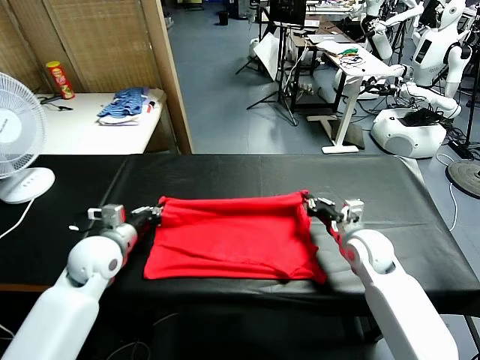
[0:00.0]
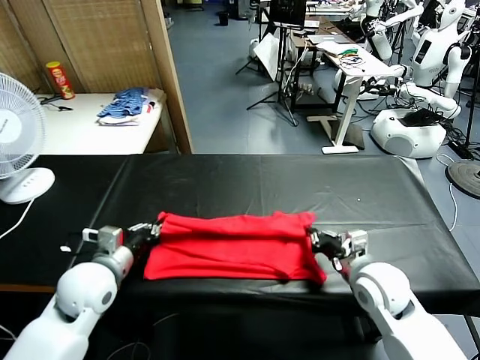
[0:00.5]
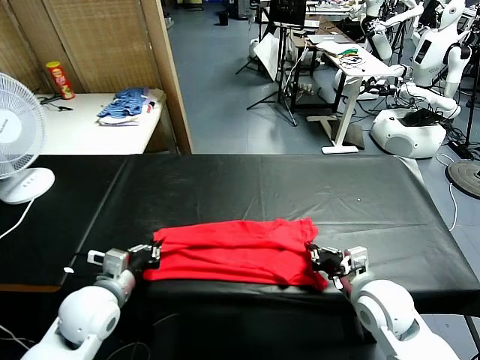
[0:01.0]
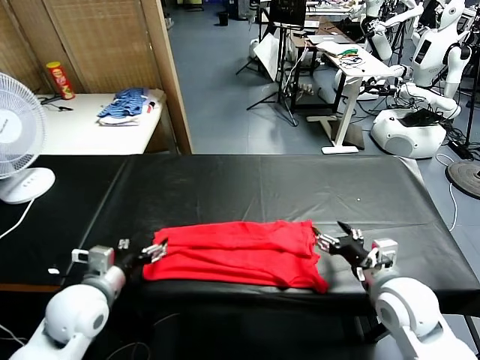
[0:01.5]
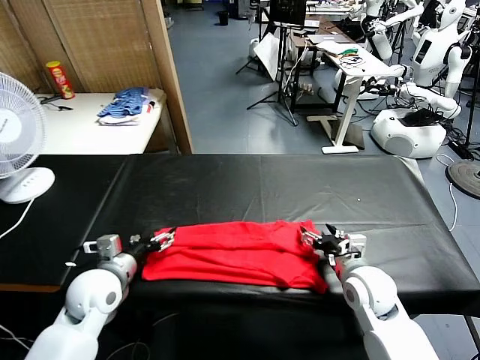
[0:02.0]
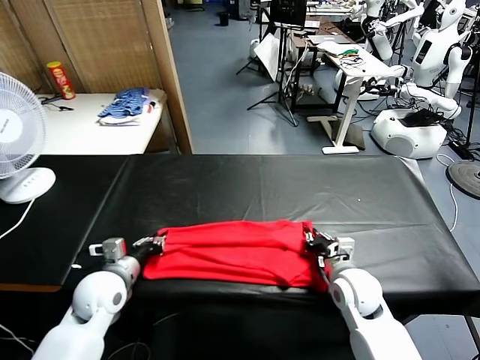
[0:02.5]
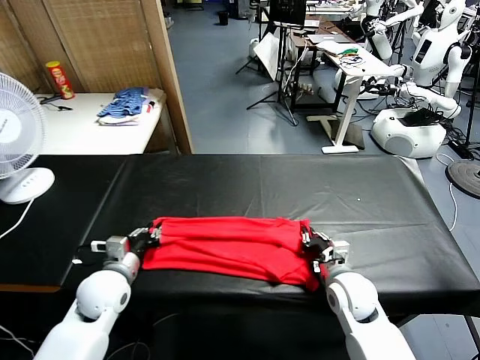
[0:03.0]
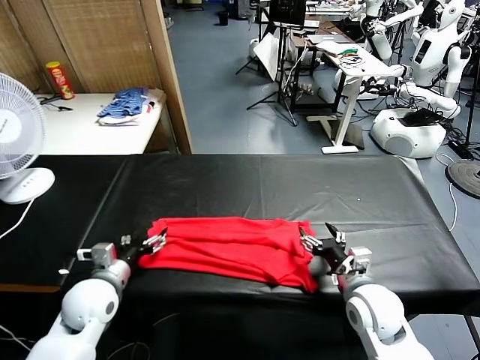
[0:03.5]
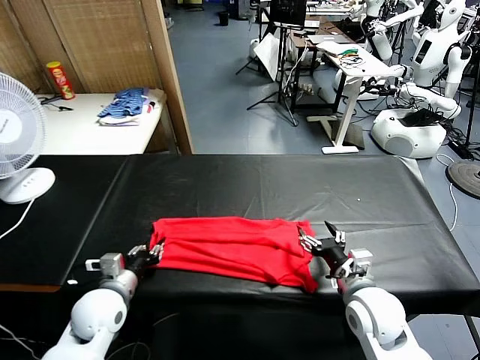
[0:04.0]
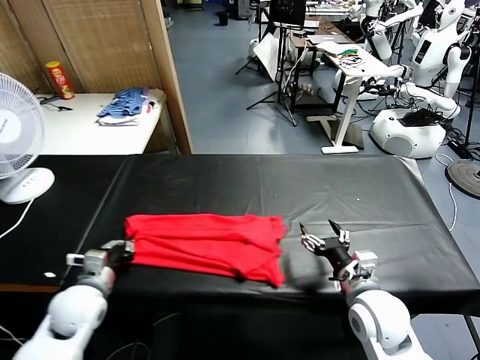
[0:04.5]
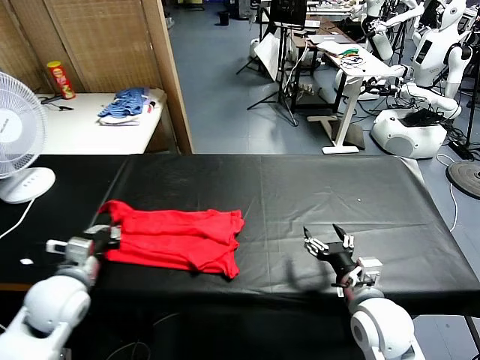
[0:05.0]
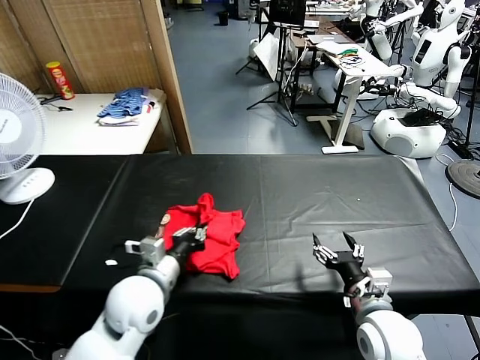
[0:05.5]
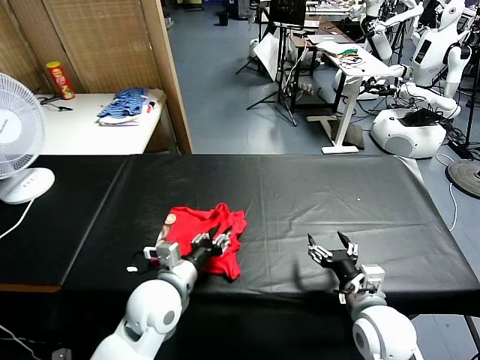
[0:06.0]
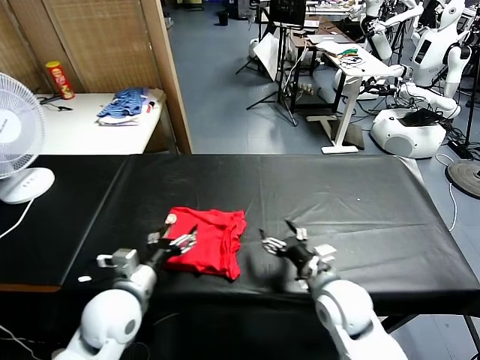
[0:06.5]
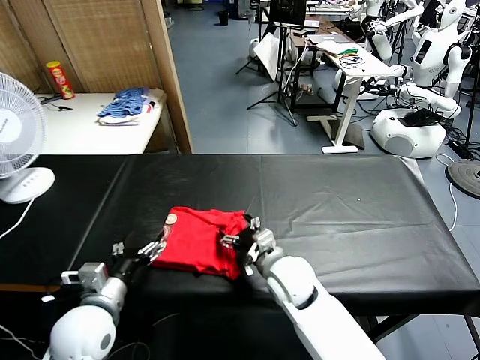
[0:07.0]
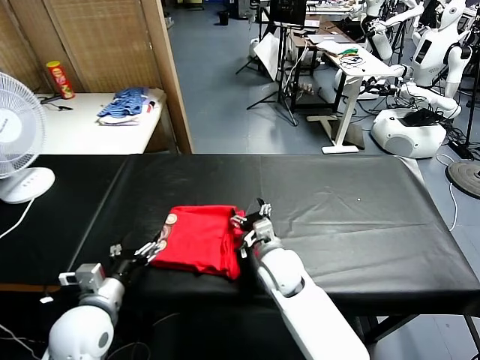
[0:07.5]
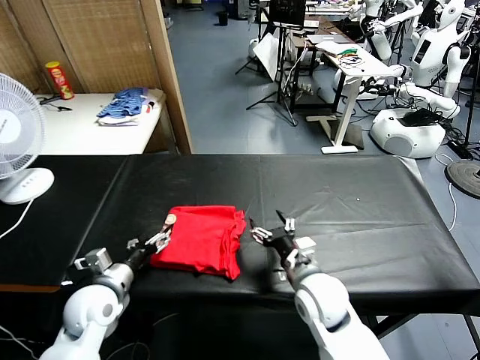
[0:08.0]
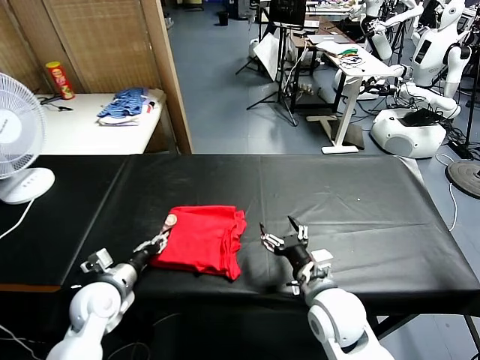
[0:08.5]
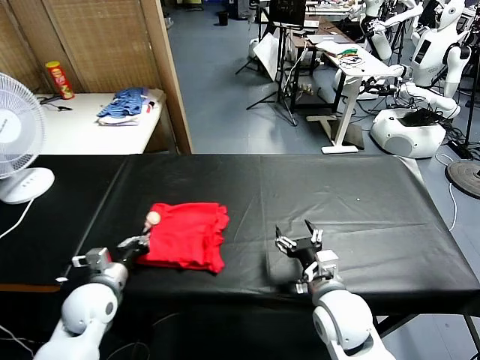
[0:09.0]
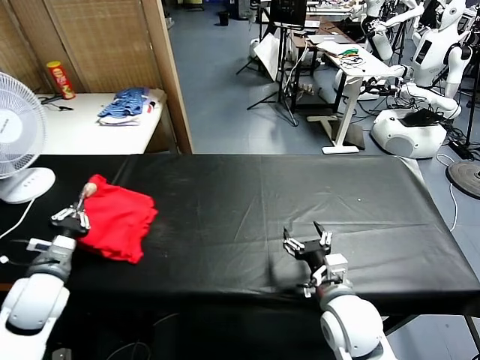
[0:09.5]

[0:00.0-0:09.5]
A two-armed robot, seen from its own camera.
Task of the whole recording: fold and organize the clothes.
Step, 0:00.0 to 0:01.0: use both grippers to drag the upper edge of the fabric backward and fold it over the lower edge.
Step, 0:01.5 to 0:04.0: use the left gripper to clamp the left edge of the fabric.
Step, 0:04.5 to 0:06.0: use the left gripper to drag the left edge of the fabric to the left and folds it over the right edge.
0:00.0 to 0:02.0: The right gripper opens its fingers. The left gripper opens.
0:02.0 to 0:04.0: The right gripper shifts about 5 cm backward, and closes, then opens again; the left gripper closes its fingers.
0:04.0 to 0:05.5: The left gripper moves to the right and upward, roughly 15 cm.
0:05.5 to 0:07.5: The right gripper is displaced to the left and forward by about 25 cm, while the left gripper goes some 10 cm to the left, and opens up.
0:07.5 to 0:09.5: The right gripper heads backward and to the right, covering roughly 15 cm. Meanwhile the left gripper shifts some 10 cm to the left and forward, and closes.

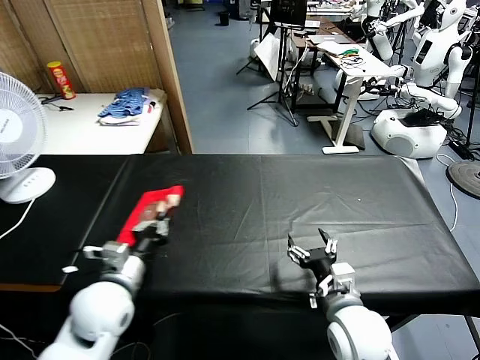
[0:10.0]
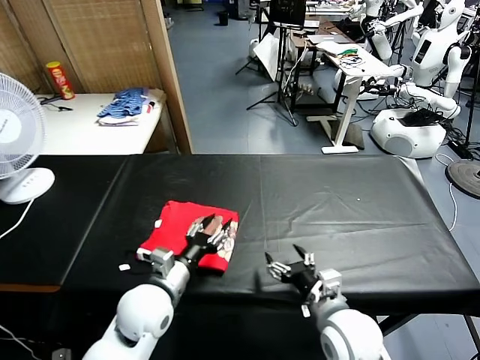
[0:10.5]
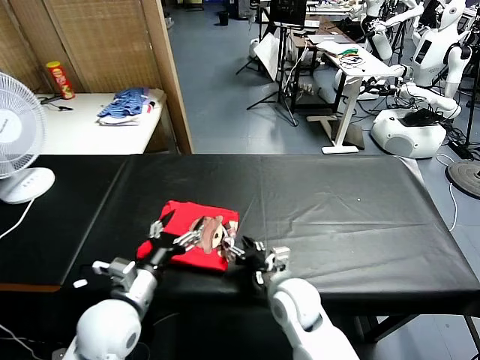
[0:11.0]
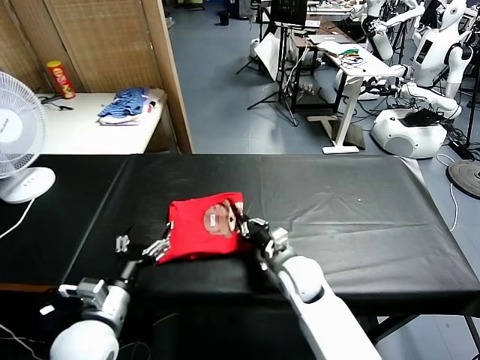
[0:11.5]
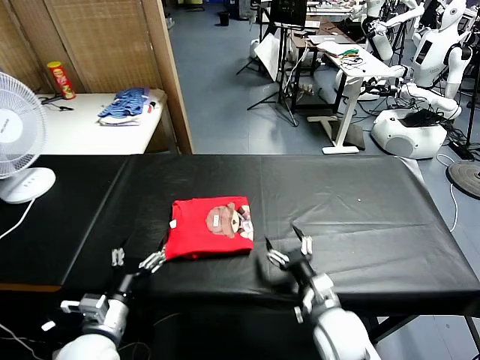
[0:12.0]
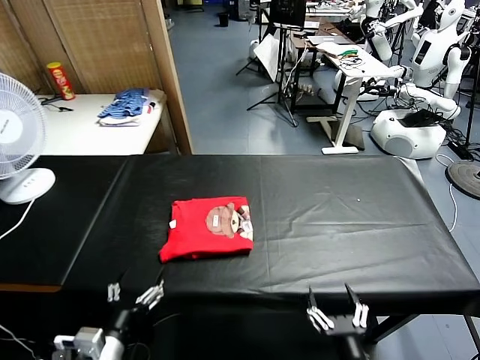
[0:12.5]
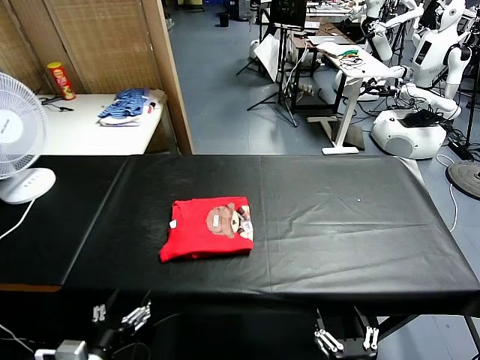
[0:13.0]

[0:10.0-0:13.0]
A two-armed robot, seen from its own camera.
Task of the whole recording: fold and organize the clothes.
Step, 0:11.0 to 0:11.5: Drag the clothes to the center of the table.
0:10.0 to 0:11.5: The left gripper heads backward, covering some 5 cm, moves approximately 10 cm to the right and comes back, and opens. The right gripper moves forward, to the left and downward, roughly 15 cm, and closes up.
0:11.5 to 0:13.0: The right gripper shifts about 30 cm backward, and opens up, while the left gripper shifts about 10 cm backward.

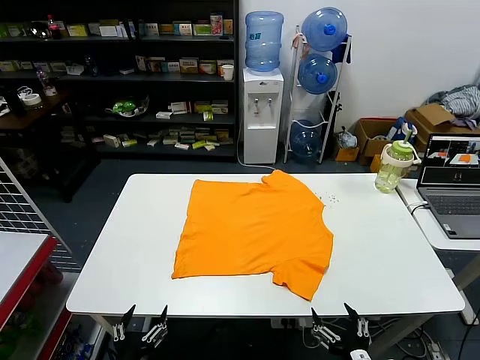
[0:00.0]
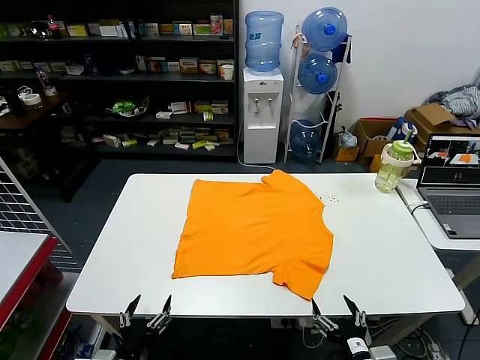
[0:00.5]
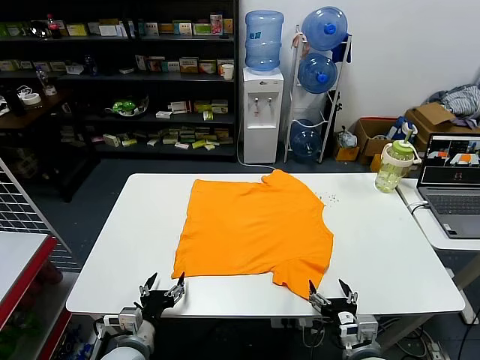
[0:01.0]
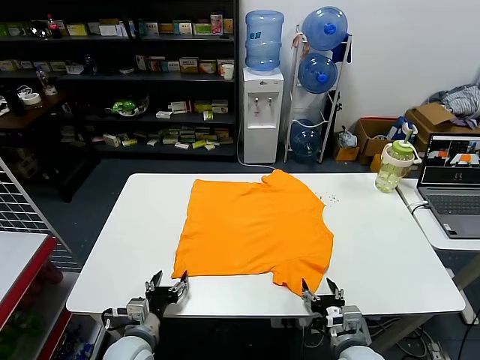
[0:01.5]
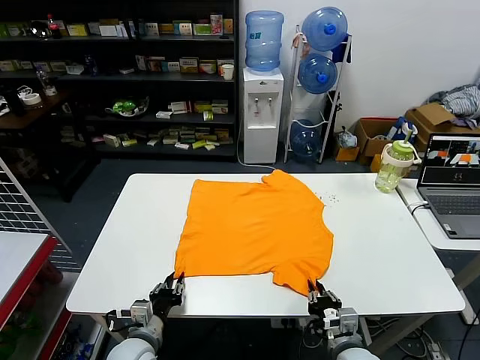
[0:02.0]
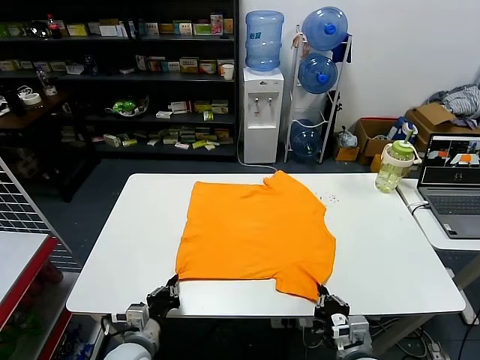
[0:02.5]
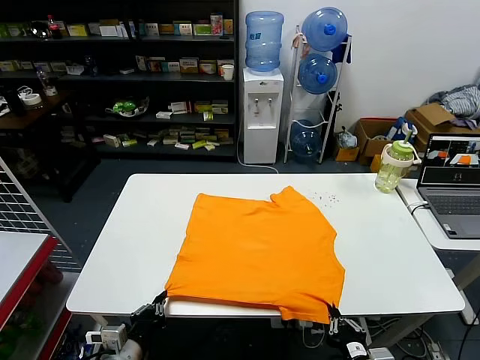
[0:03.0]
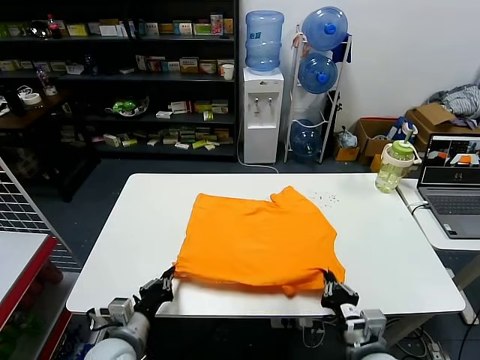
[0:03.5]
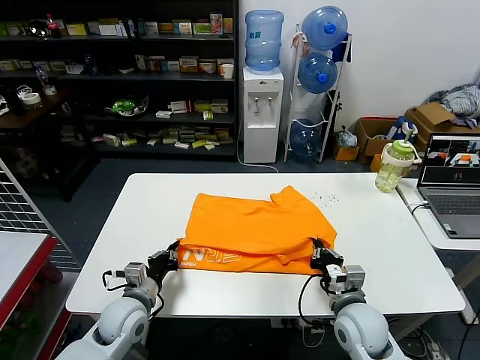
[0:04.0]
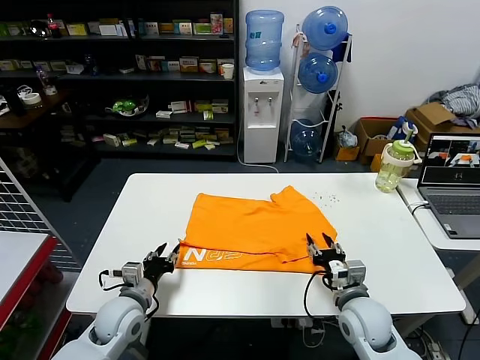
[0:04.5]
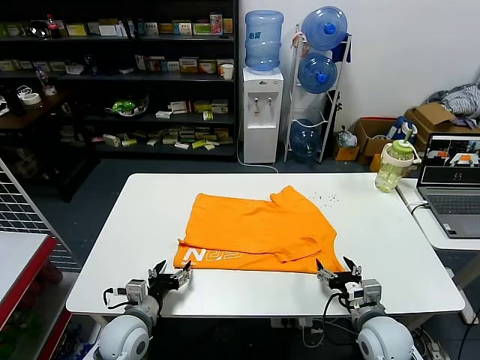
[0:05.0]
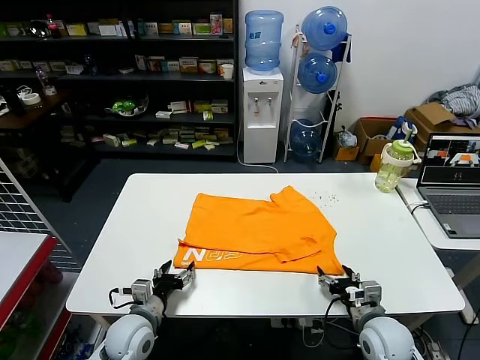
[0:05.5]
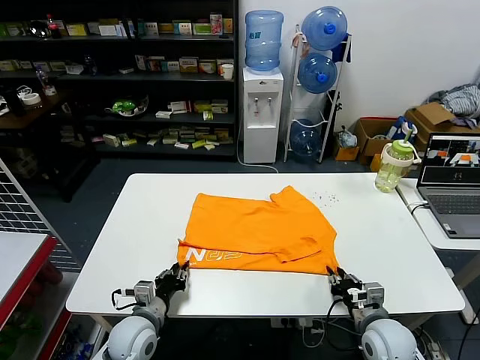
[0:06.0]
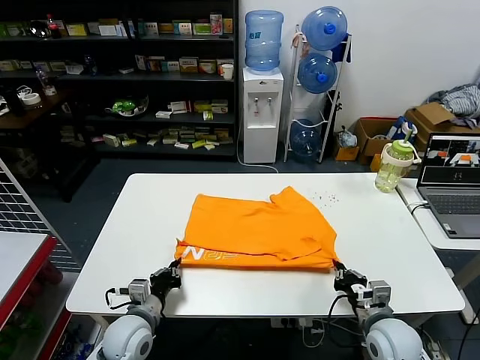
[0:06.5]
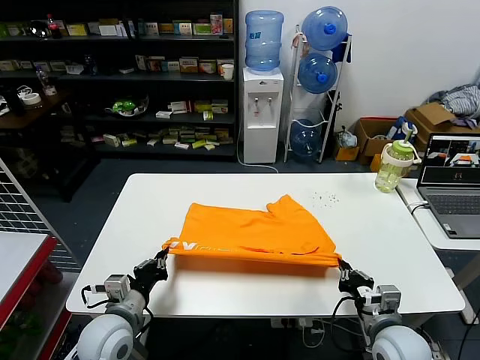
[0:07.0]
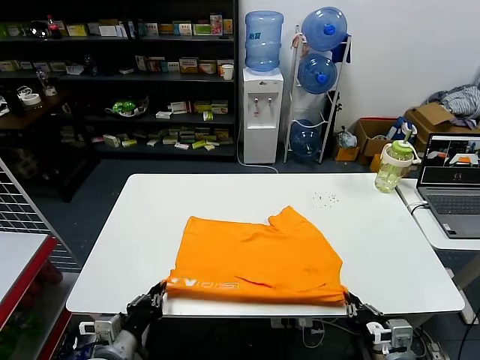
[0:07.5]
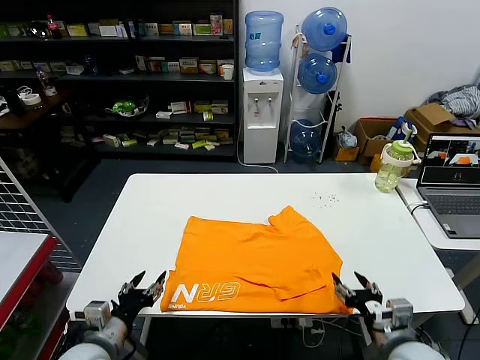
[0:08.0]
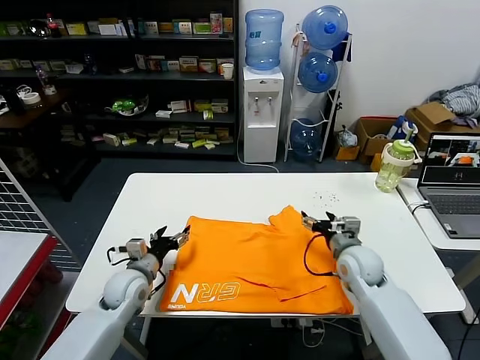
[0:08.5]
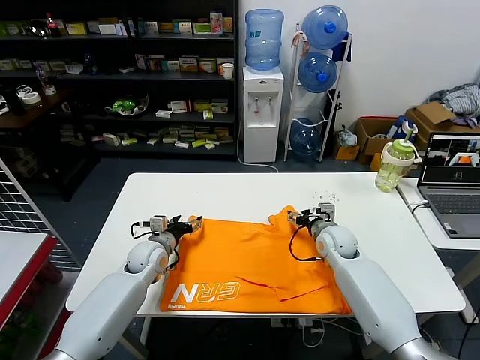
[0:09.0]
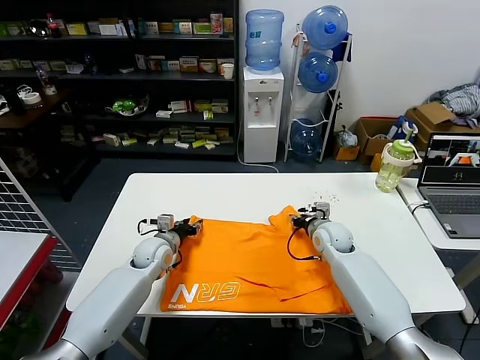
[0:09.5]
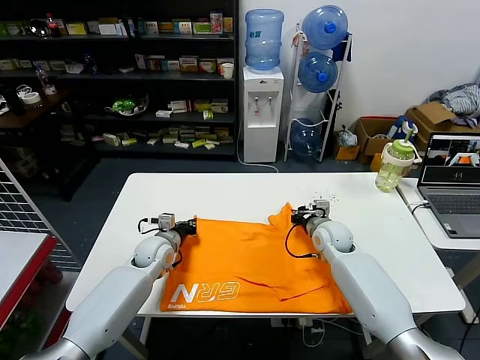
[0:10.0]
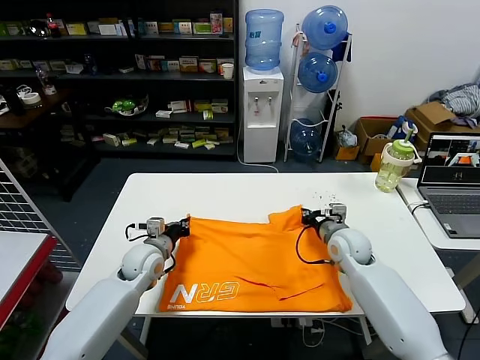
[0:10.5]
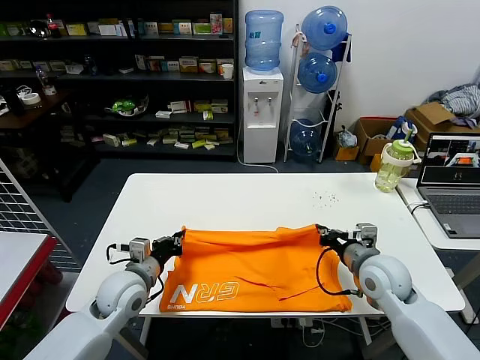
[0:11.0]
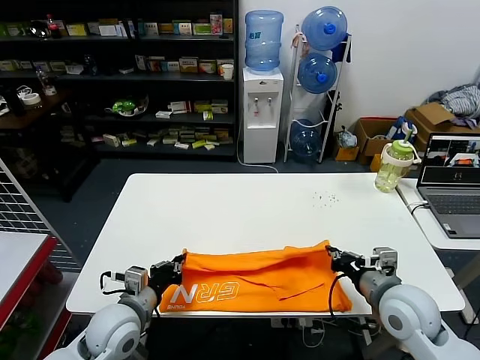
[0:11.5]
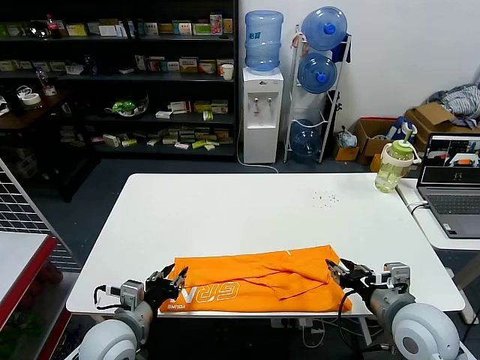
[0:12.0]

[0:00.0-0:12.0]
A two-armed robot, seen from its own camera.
Task of the whole recording: fold and organize the clothes.
Step, 0:00.0 to 0:02.0: use both grippers simultaneously to clamp the lower edge of the clothing fabric.
Step, 0:02.5 to 0:04.0: use both grippers to drag the lower edge of the fabric forward and fold it over the upper edge.
Step, 0:04.5 to 0:07.5: Drag the clothes downward with both gripper.
Step, 0:08.0 to 0:09.5: use both grippers simultaneously to clamp the upper edge of the clothing fabric.
Step, 0:10.0 to 0:11.5: use both grippers to drag the upper edge of the fabric backward and fold it over the lower edge.
0:02.0 to 0:04.0: The left gripper moves forward, approximately 5 cm. The right gripper moves forward and upward, roughly 10 cm.
0:04.0 to 0:06.0: The right gripper shifts approximately 5 cm to the right, and opens, then closes again; the left gripper opens, then closes once more.
0:06.0 to 0:08.0: The left gripper shifts some 10 cm backward and upward, and opens its fingers; the right gripper moves upward, about 5 cm, and opens.
0:08.0 to 0:10.0: Both grippers travel together forward, approximately 30 cm. The left gripper closes. Meanwhile the right gripper closes.
0:10.0 to 0:12.0: Both grippers move backward, about 25 cm. The left gripper opens its fingers. Meanwhile the right gripper opens.
